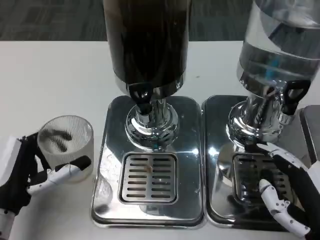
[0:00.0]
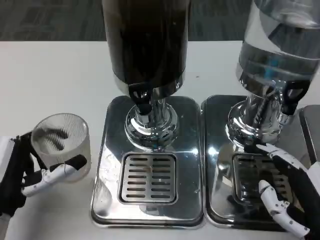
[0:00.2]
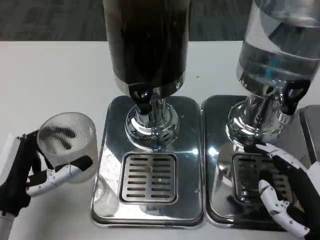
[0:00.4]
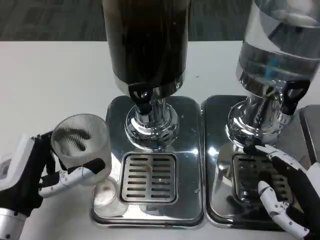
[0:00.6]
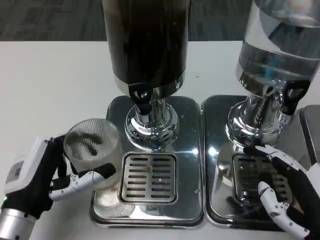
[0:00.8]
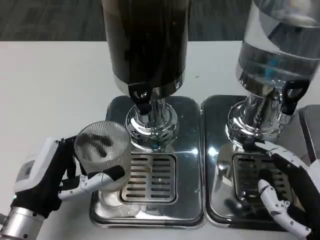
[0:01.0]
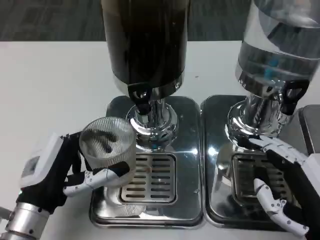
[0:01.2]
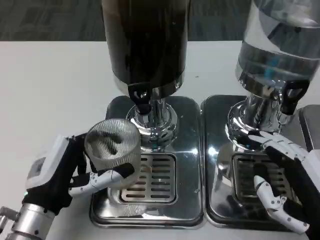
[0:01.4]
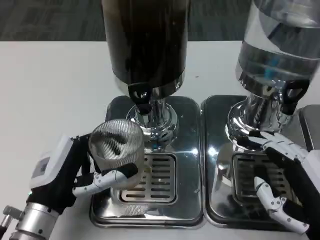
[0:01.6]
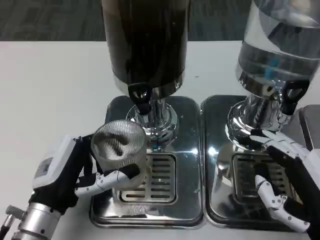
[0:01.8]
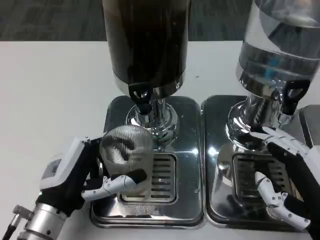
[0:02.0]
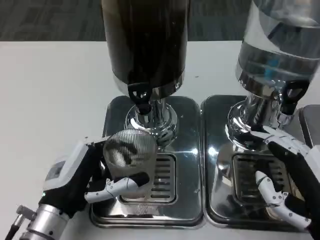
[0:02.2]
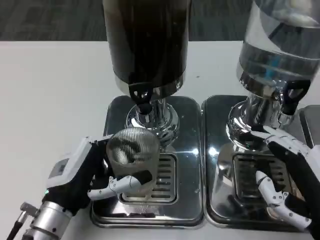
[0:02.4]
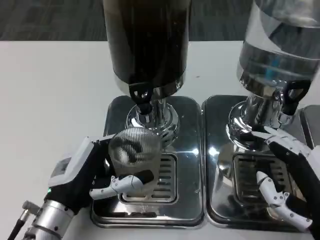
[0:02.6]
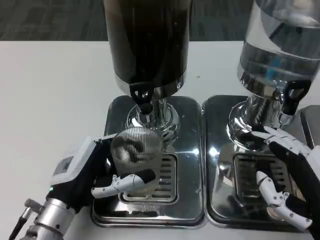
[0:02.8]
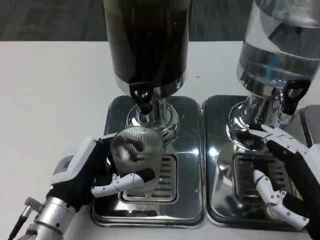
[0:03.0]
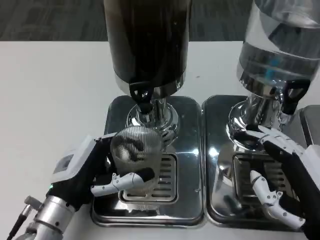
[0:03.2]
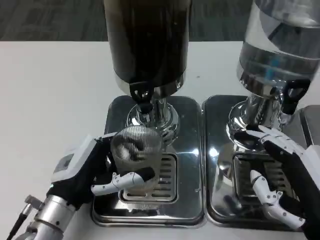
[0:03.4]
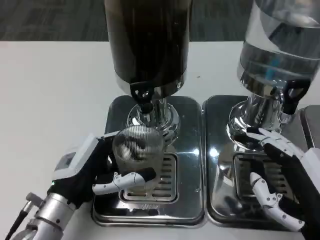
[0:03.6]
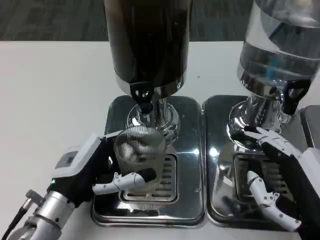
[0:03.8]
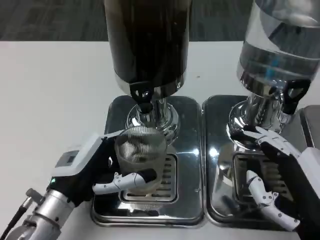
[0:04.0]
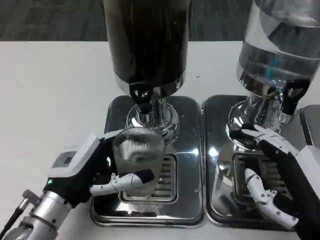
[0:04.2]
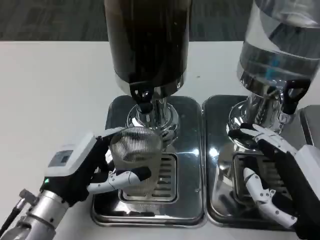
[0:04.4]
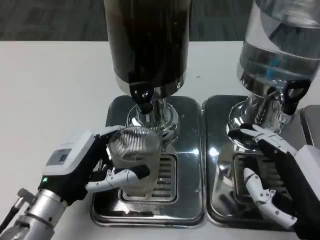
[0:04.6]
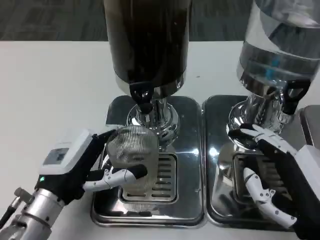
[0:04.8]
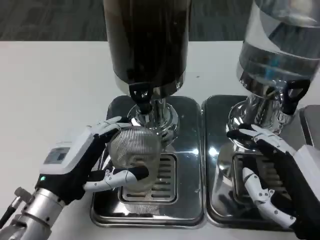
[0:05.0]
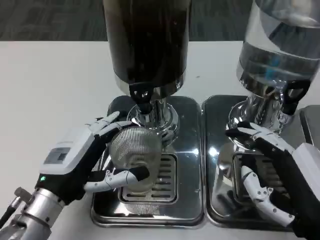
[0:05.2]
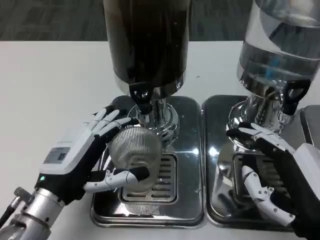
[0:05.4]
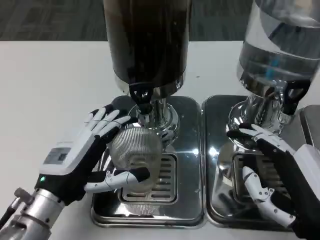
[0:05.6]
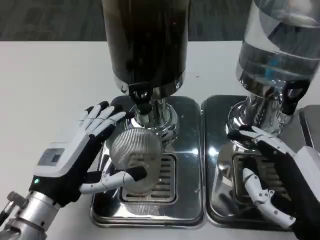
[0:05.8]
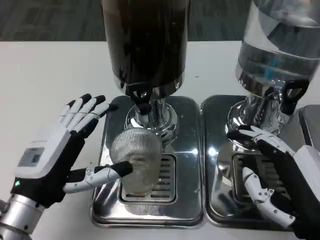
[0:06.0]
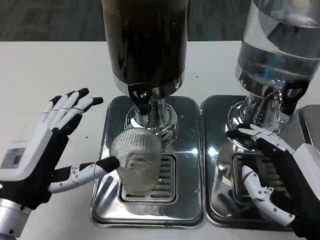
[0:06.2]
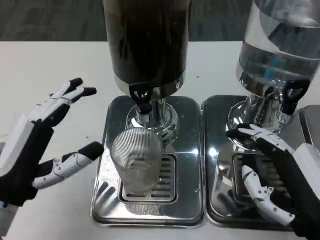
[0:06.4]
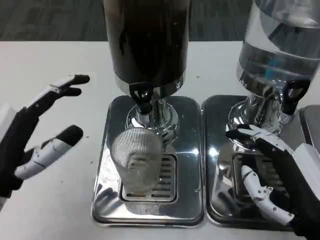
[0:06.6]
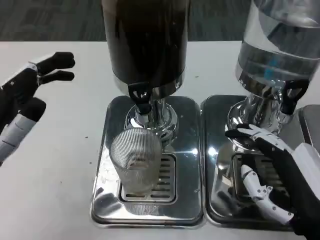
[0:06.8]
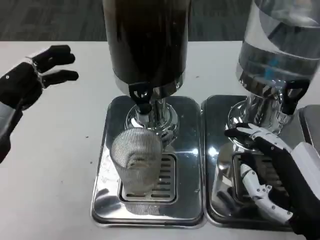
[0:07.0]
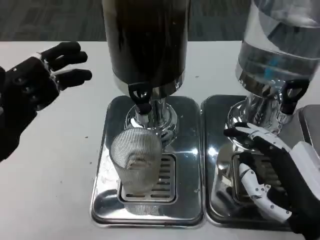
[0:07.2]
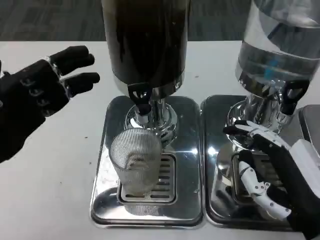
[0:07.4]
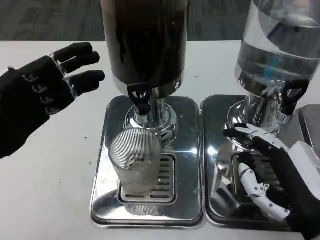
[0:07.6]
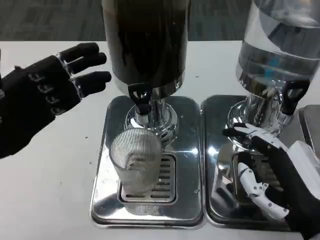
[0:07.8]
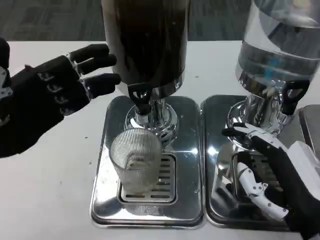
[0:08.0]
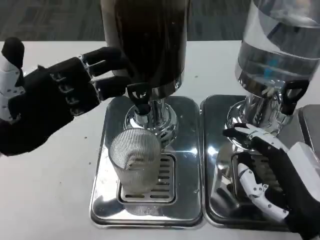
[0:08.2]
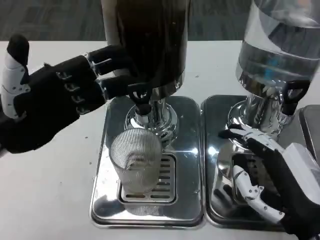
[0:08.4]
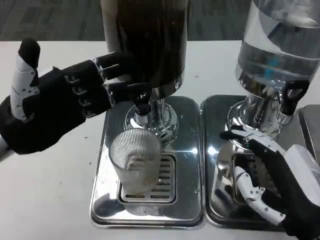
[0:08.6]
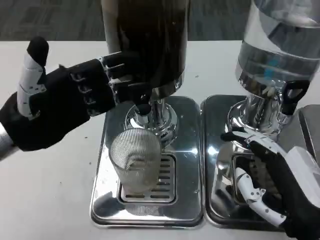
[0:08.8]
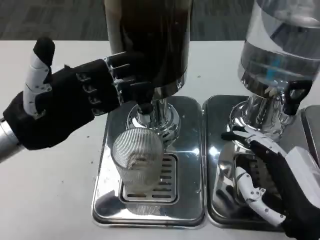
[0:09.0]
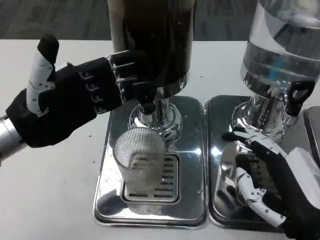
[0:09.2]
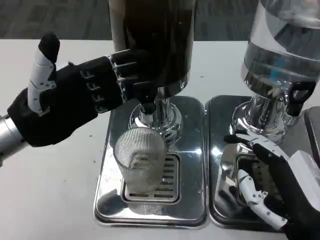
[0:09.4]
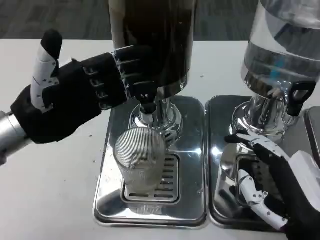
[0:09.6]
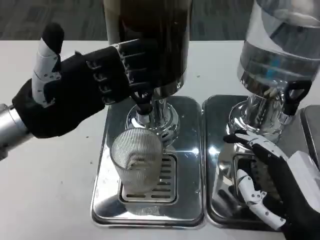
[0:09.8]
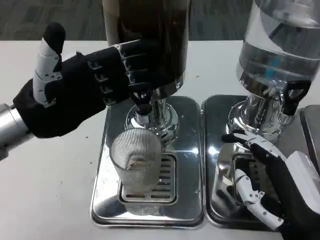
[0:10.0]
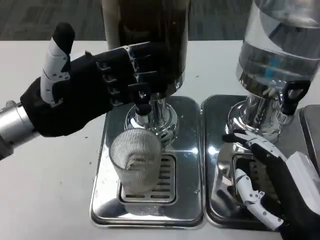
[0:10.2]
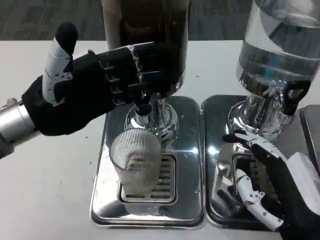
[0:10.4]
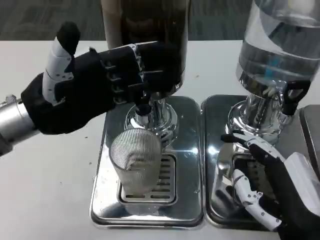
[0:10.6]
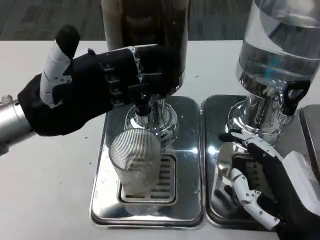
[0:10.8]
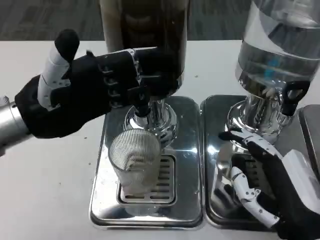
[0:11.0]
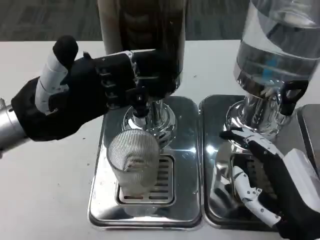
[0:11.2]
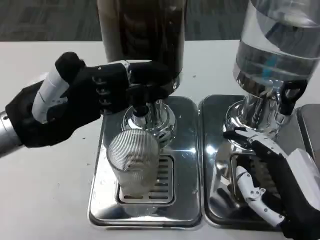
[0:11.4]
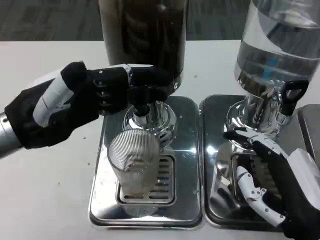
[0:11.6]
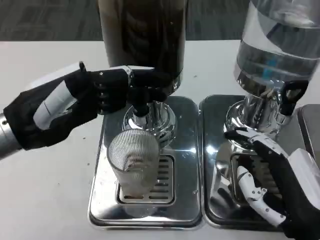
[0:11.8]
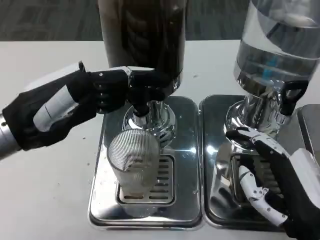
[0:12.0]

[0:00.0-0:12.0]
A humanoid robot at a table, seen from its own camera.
Task of the whole recording: Grasp the cup under the faucet to collect the drink, then remove the cup.
0:00.0 to 0:01.6: The left hand is displaced to the right by about 5 cm.
0:03.0 to 0:04.4: The hands make only small movements.
0:06.0 to 0:07.6: The left hand travels upward and to the left by roughly 10 cm.
0:07.6 to 0:09.0: The left hand shifts by some 5 cm.

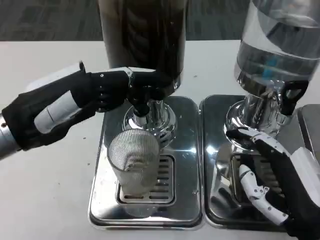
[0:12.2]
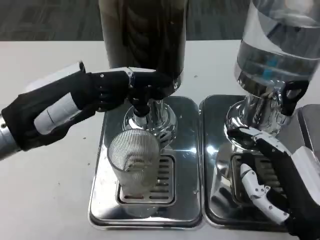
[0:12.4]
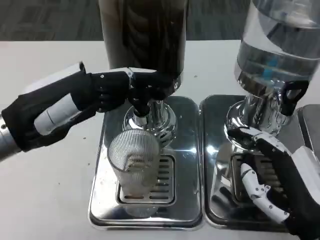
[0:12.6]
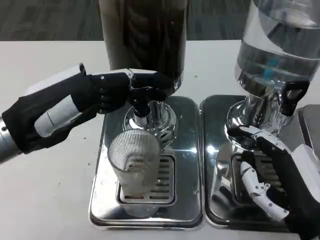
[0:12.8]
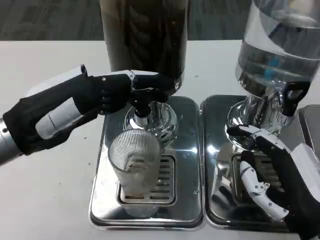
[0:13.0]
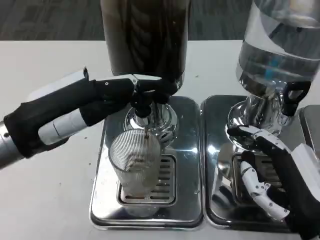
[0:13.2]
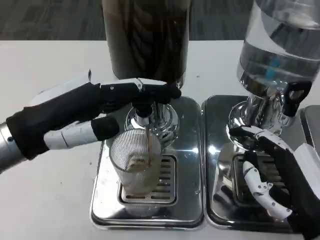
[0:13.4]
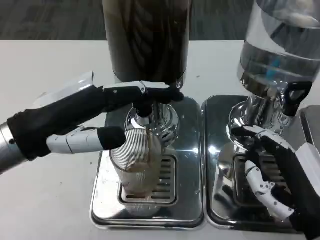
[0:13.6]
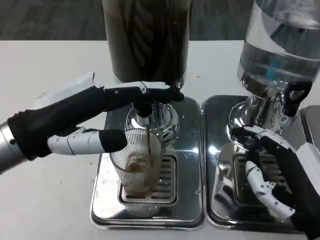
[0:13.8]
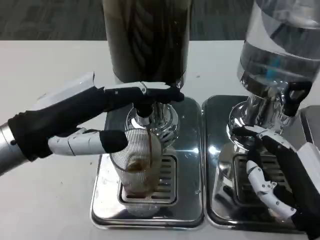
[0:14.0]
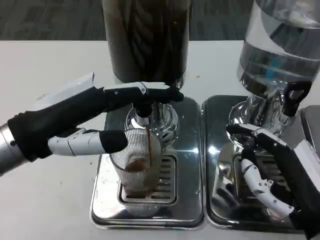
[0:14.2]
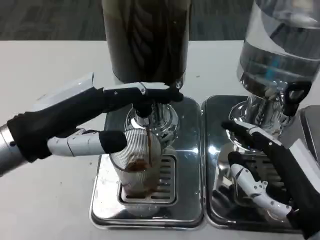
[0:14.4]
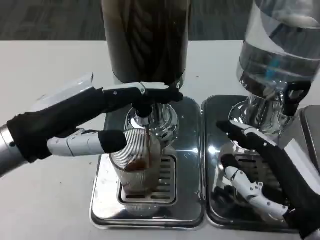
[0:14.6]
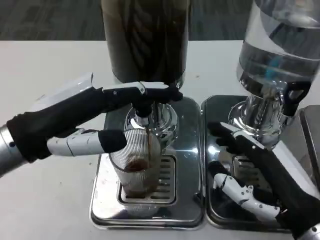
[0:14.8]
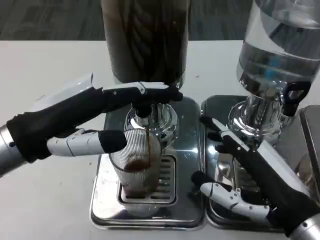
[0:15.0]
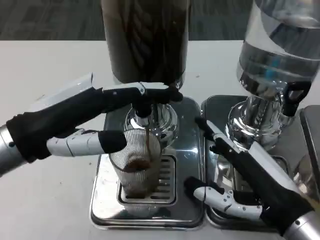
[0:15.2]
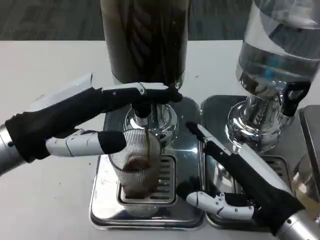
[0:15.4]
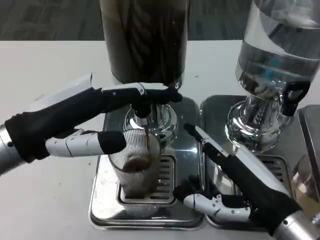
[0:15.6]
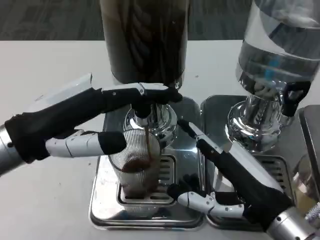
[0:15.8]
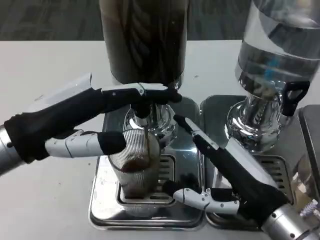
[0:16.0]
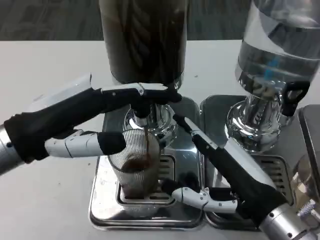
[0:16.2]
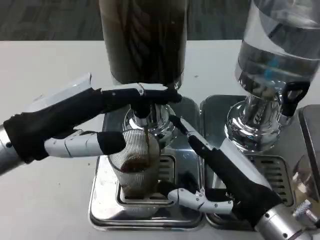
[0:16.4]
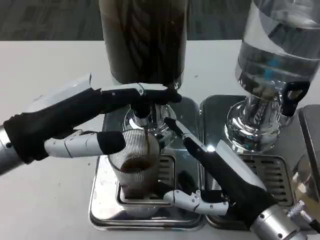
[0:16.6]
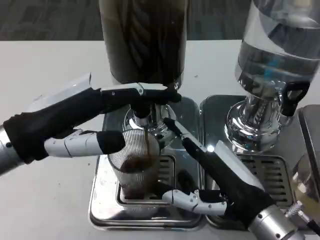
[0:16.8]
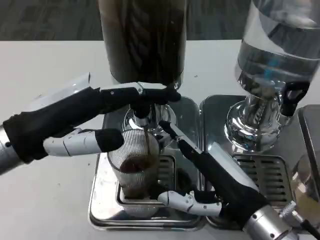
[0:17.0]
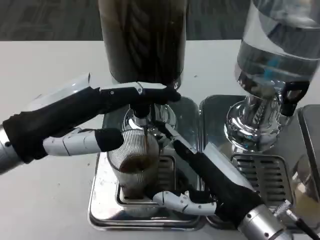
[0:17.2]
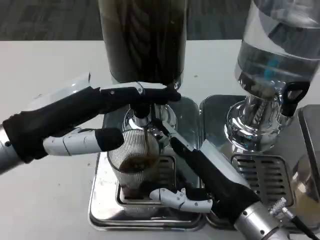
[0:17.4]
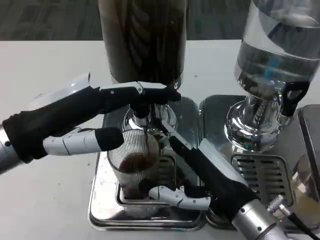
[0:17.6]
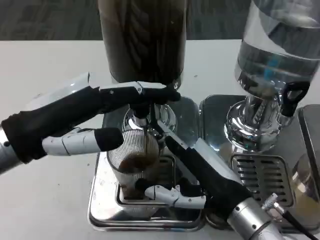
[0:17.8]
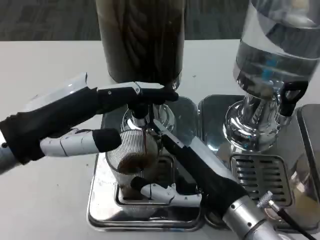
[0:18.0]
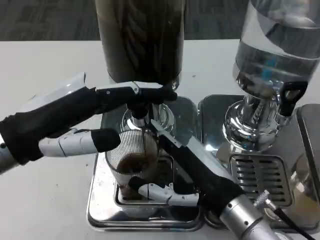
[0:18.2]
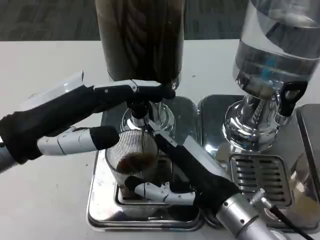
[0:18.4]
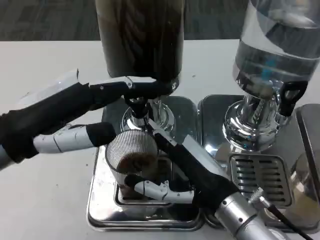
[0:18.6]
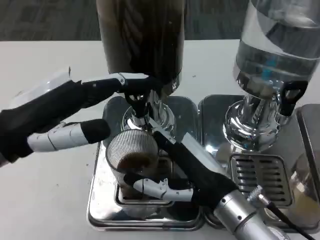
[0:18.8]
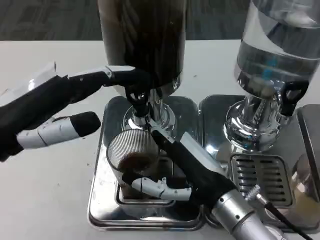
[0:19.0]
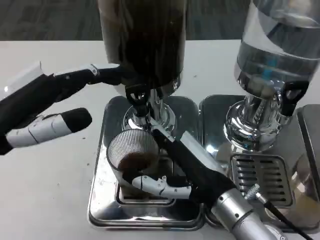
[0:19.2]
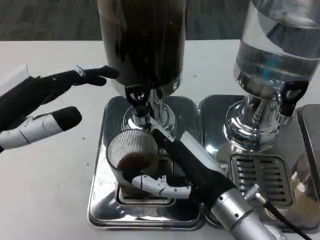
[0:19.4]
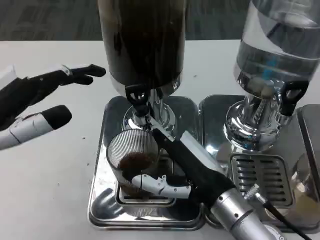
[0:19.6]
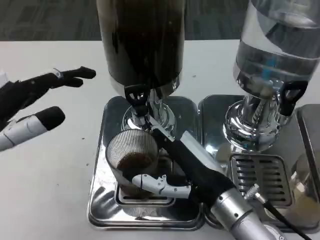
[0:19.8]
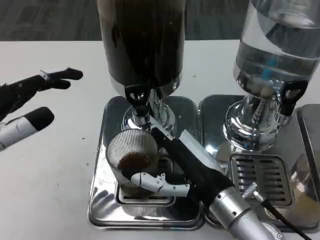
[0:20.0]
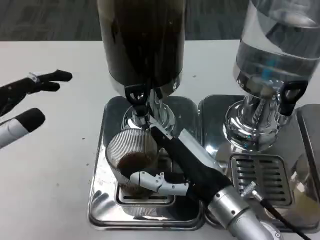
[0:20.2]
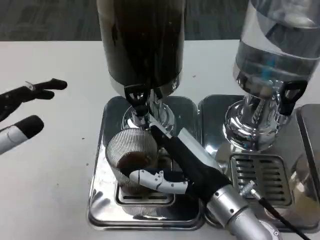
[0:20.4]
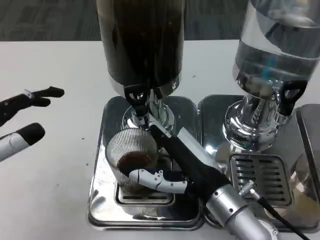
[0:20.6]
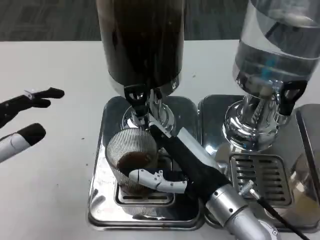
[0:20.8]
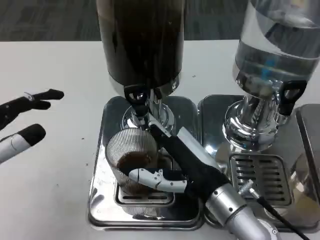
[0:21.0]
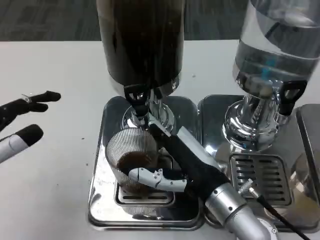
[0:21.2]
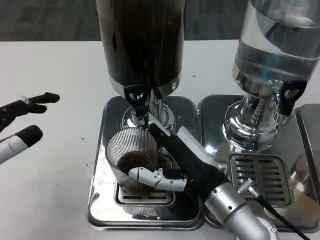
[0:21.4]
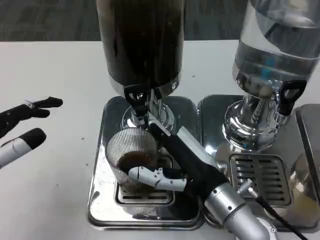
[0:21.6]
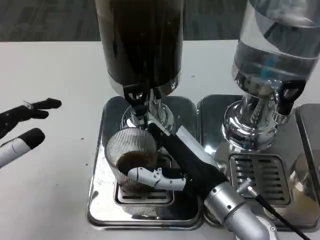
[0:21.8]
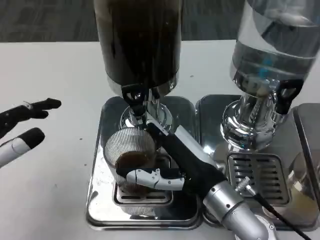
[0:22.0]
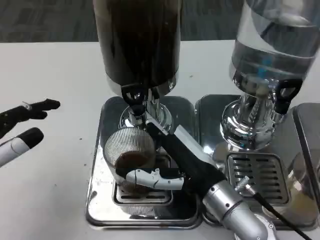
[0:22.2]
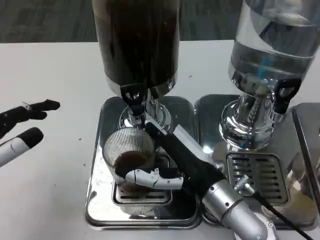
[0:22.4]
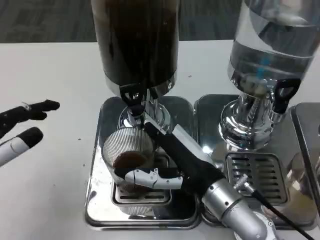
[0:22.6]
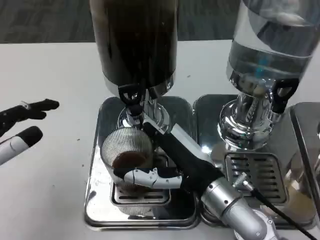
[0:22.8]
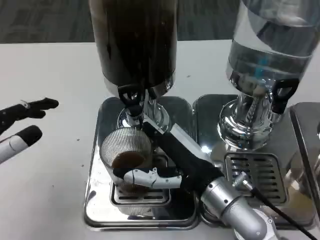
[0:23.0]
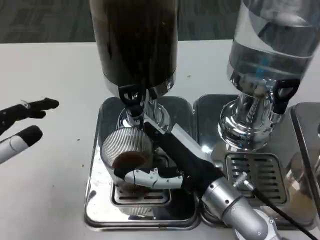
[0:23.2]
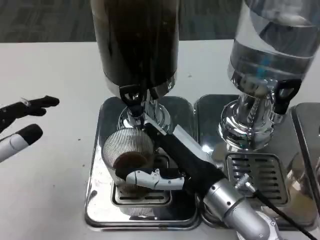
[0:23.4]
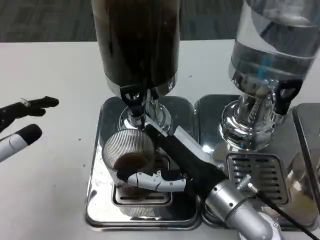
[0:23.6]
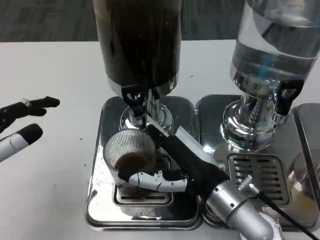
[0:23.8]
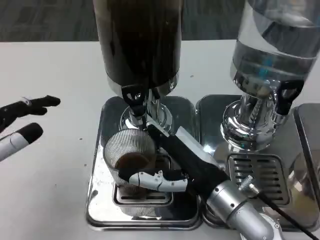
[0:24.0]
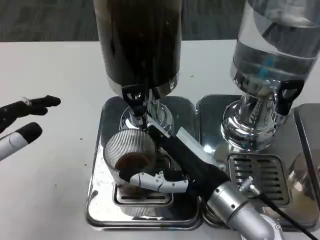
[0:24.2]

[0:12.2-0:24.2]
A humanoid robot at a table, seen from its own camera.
Task of the whole recording: Grasp the cup under the faucet to collect the drink, then remove the cup.
0:15.2 to 0:16.6: The hands make only small movements.
0:18.2 to 0:19.8: The left hand changes place by approximately 5 cm.
0:19.8 to 0:21.2: The hands stay close to where they were, moving slightly.
